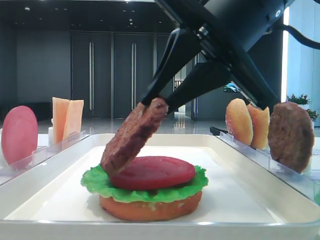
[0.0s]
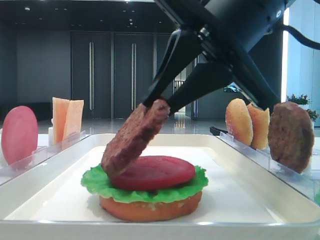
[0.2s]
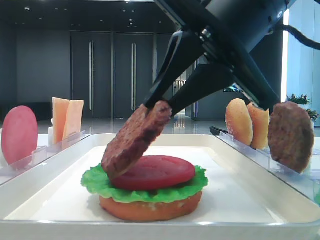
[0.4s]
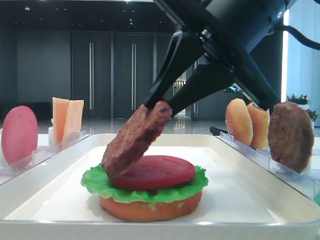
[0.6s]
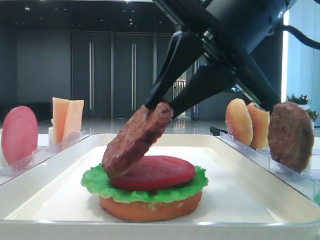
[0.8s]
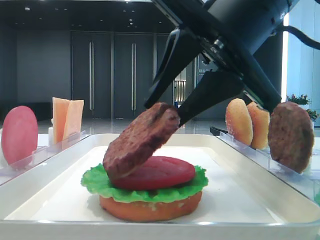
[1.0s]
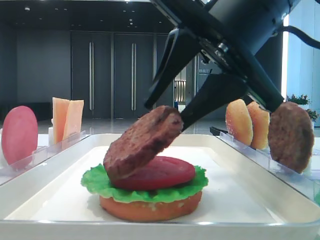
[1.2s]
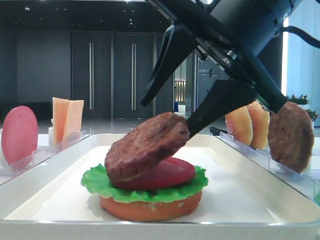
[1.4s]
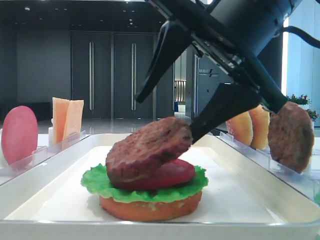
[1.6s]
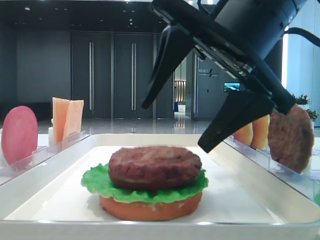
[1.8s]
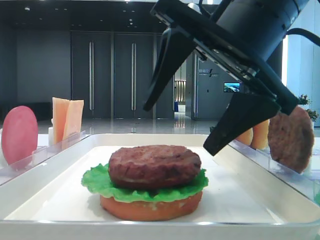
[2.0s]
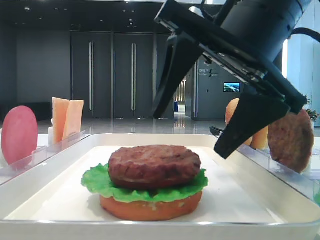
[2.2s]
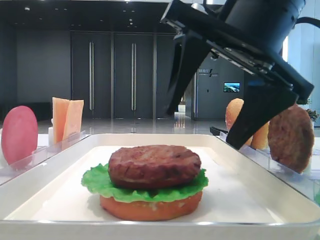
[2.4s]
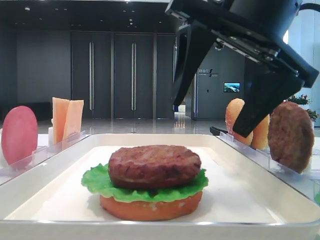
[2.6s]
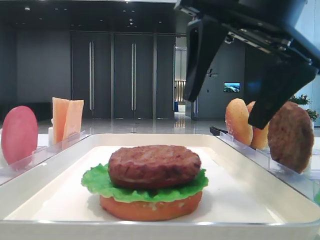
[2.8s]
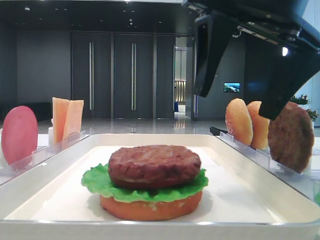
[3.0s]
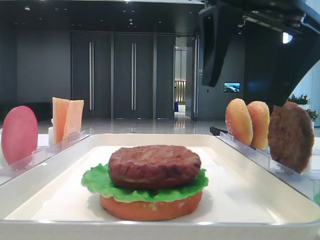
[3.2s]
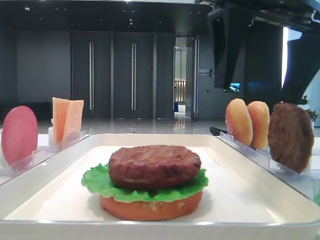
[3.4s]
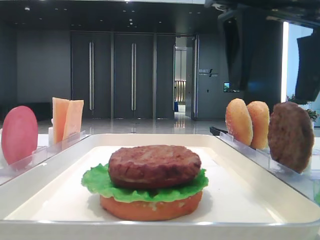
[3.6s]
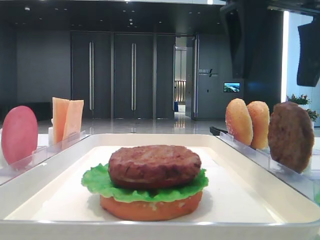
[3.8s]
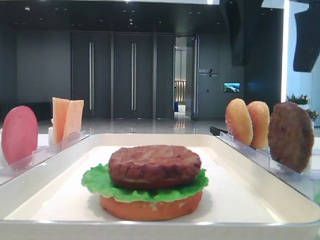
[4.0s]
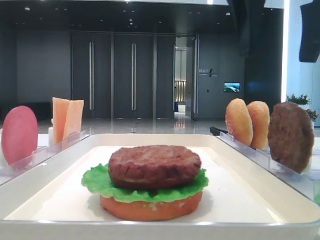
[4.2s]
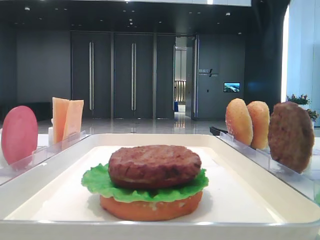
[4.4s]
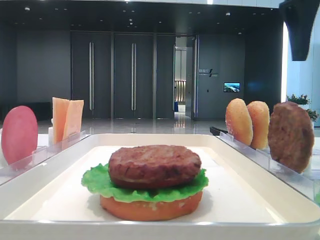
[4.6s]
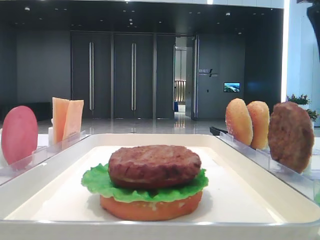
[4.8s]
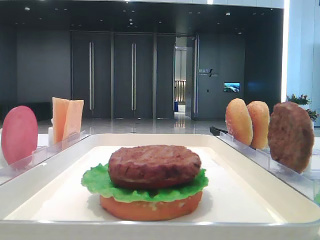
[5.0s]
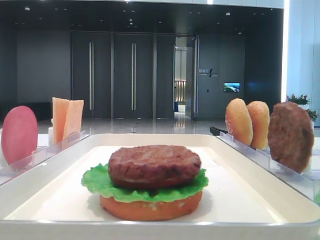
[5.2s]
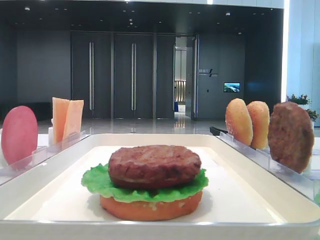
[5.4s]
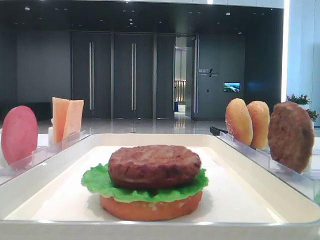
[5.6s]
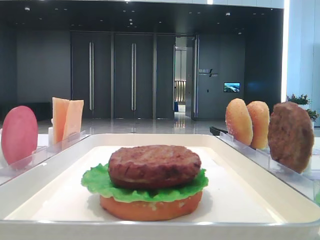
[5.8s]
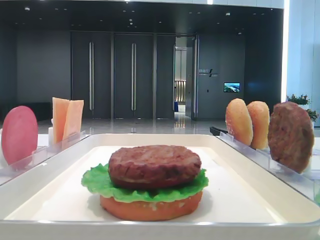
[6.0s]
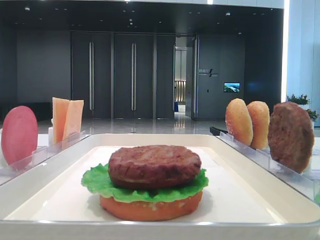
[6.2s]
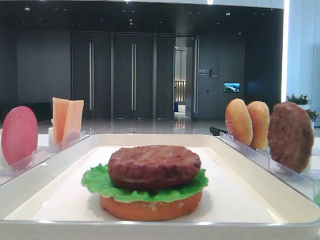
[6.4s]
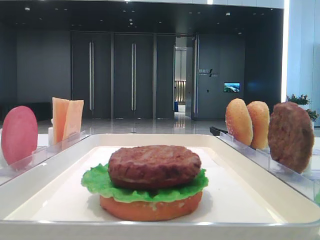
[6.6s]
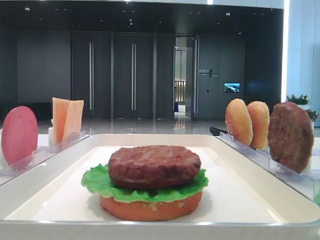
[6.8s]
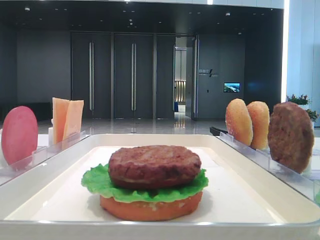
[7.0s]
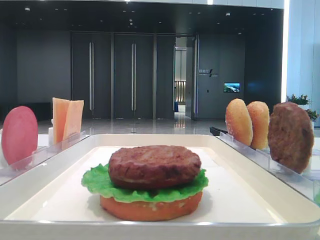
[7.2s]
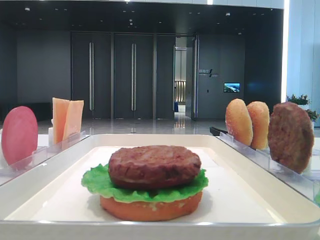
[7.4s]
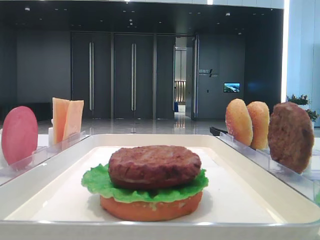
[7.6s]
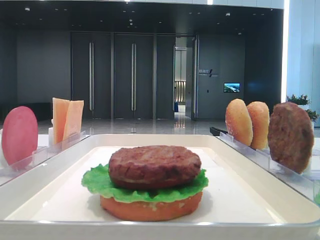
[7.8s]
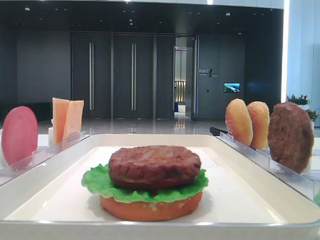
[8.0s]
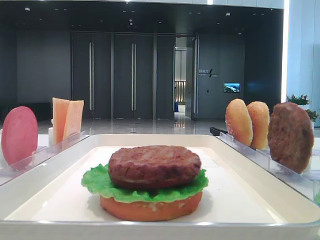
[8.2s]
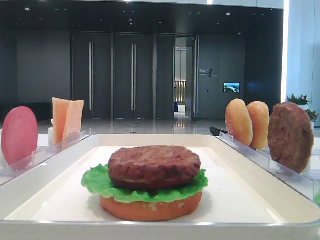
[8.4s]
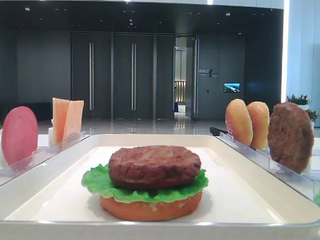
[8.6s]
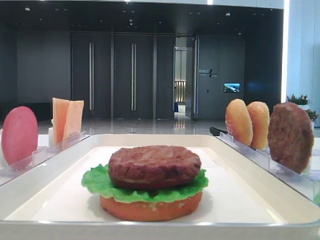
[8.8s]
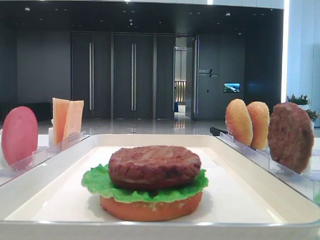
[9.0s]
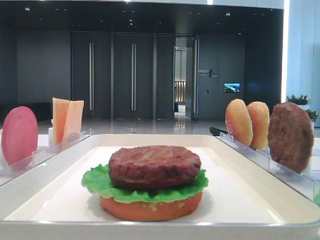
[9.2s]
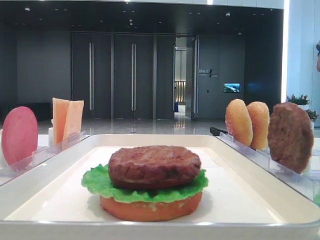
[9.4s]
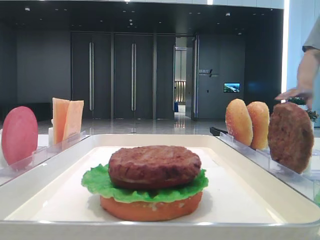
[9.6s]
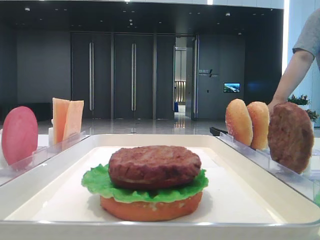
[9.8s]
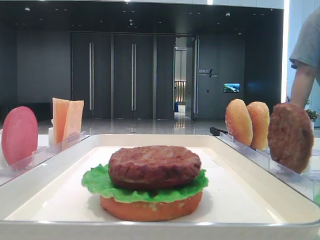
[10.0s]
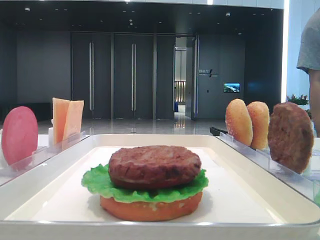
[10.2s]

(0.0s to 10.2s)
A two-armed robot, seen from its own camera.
0.0s - 1.4s: The right gripper opens.
1.4s - 3.0s: The right gripper opens its fingers.
3.0s - 4.4s: The right gripper moves upward and to the right, about 10 cm.
4.4s - 5.8s: The right gripper goes some 15 cm to the right.
8.8s - 10.2s: There are only small adjustments of the grippers.

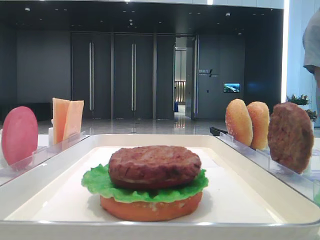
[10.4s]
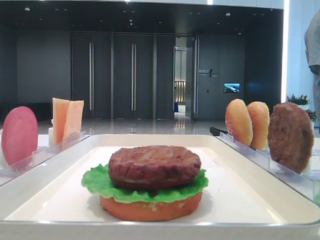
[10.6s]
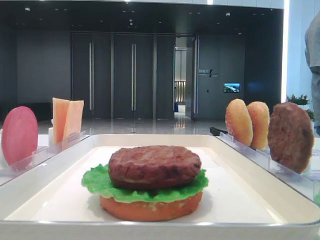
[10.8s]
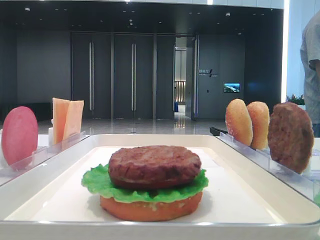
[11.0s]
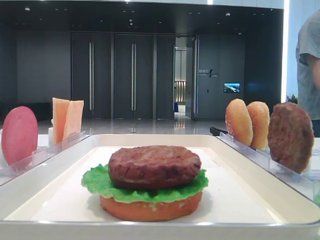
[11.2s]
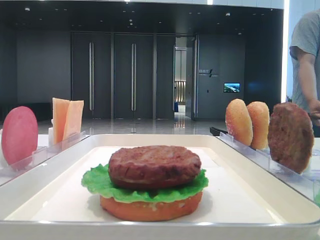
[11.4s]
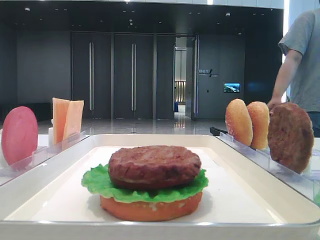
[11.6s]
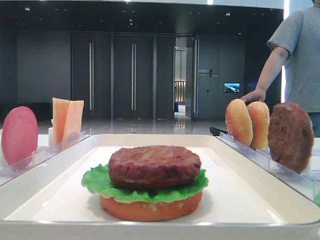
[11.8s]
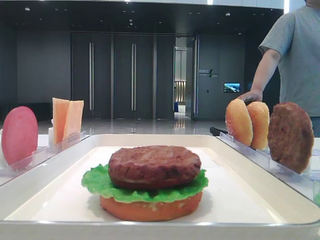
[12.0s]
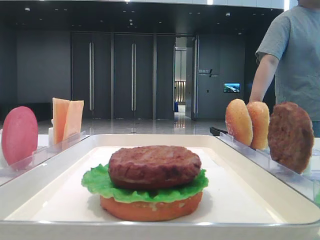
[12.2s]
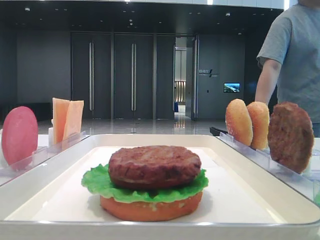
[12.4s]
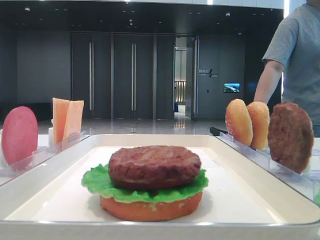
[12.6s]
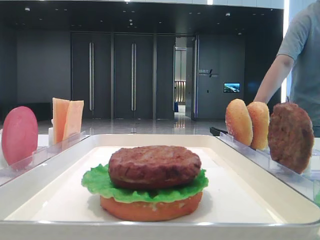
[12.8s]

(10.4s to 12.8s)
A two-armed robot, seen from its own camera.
10.4s - 12.8s: The two grippers keep their place.

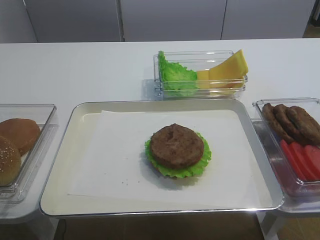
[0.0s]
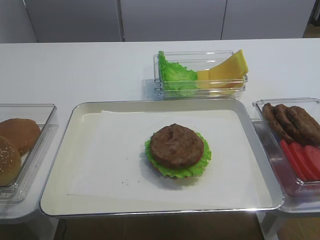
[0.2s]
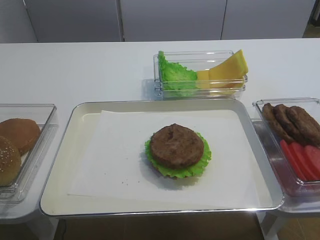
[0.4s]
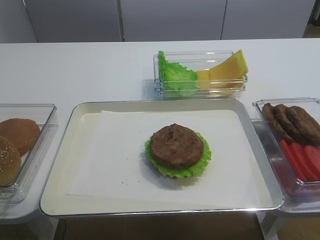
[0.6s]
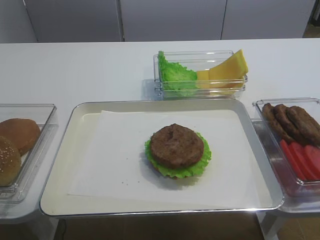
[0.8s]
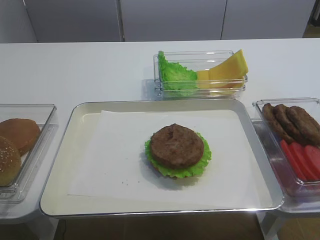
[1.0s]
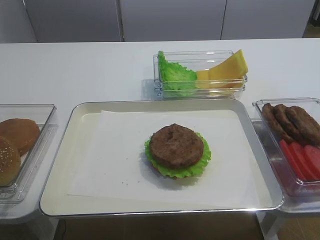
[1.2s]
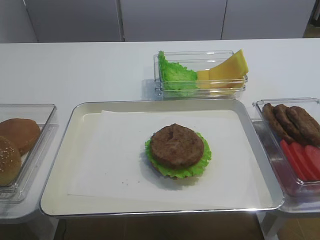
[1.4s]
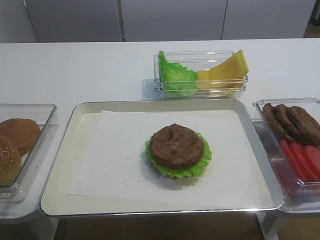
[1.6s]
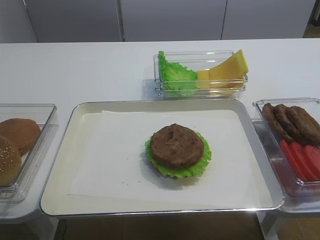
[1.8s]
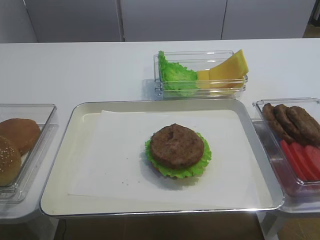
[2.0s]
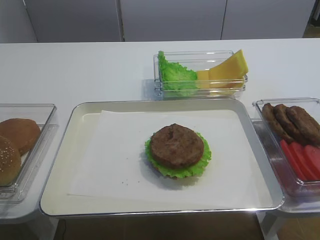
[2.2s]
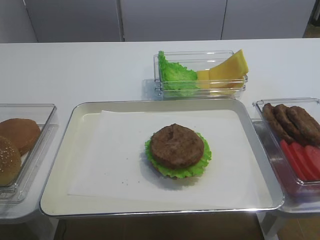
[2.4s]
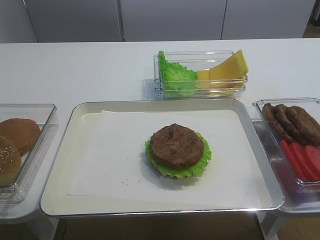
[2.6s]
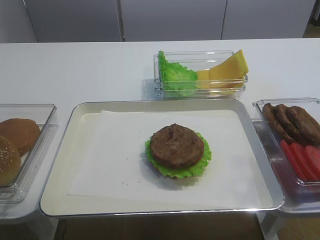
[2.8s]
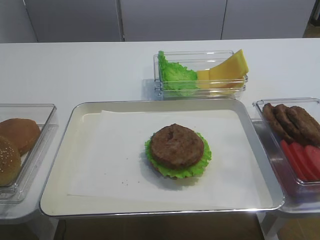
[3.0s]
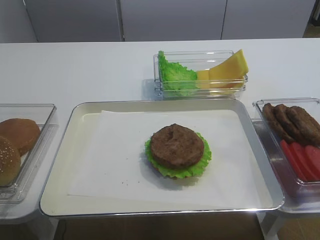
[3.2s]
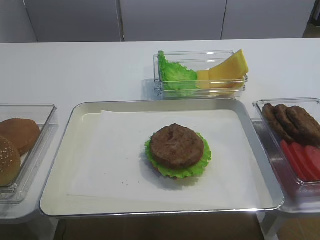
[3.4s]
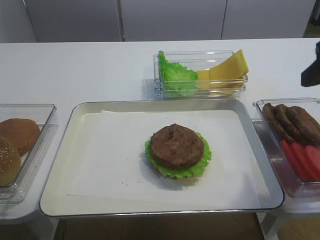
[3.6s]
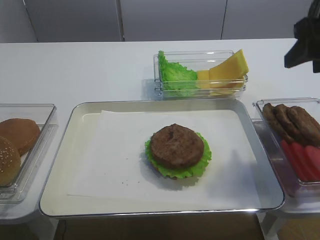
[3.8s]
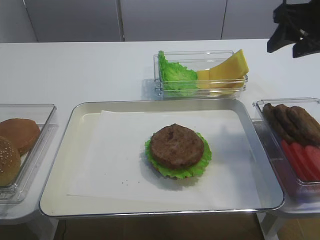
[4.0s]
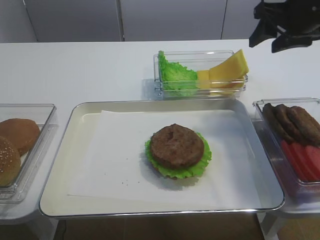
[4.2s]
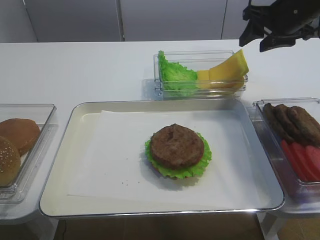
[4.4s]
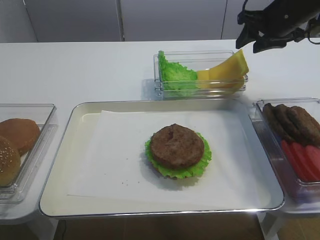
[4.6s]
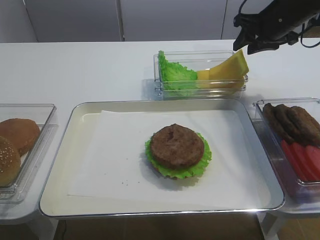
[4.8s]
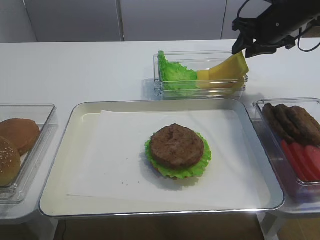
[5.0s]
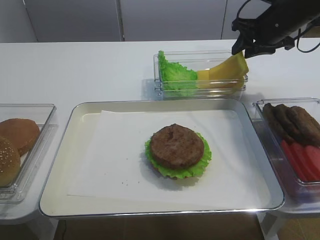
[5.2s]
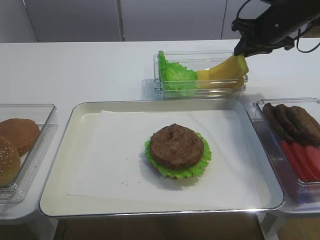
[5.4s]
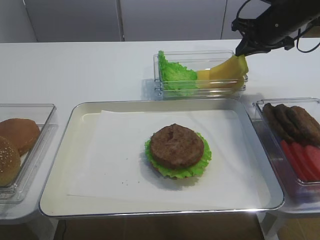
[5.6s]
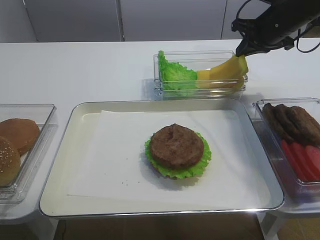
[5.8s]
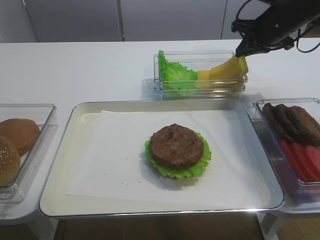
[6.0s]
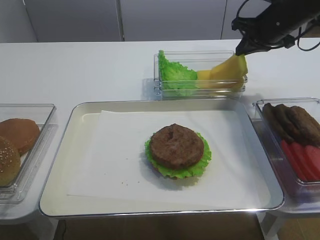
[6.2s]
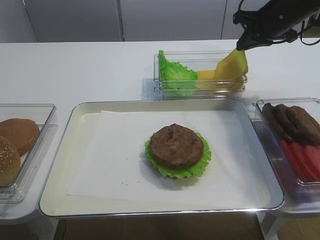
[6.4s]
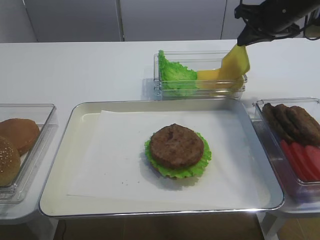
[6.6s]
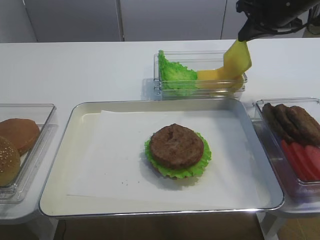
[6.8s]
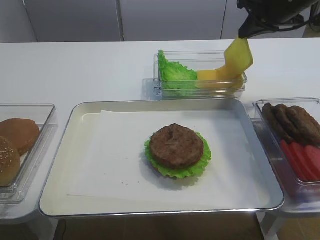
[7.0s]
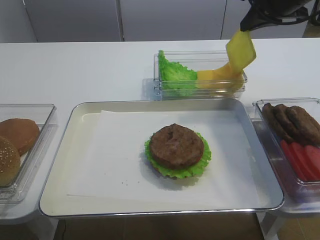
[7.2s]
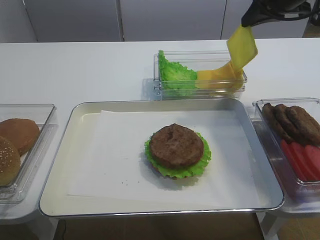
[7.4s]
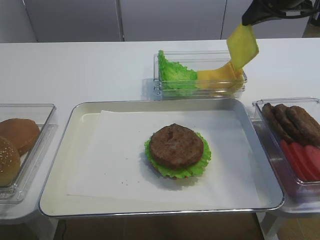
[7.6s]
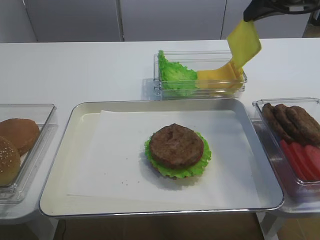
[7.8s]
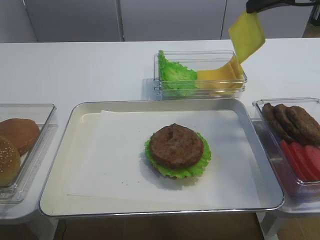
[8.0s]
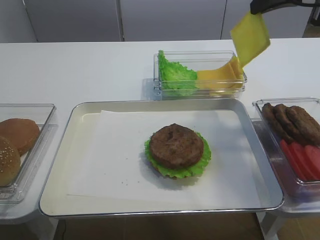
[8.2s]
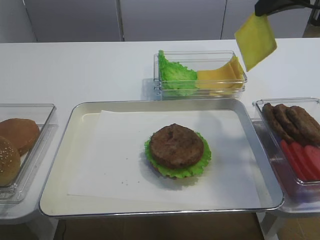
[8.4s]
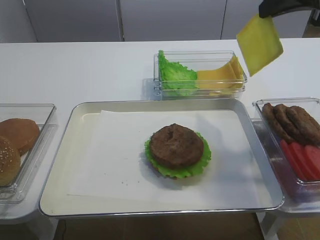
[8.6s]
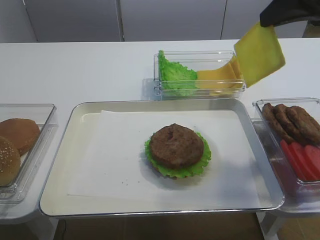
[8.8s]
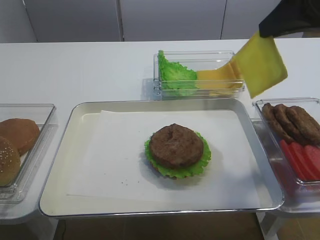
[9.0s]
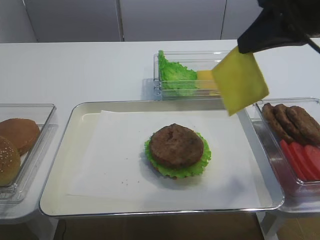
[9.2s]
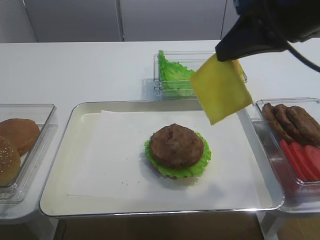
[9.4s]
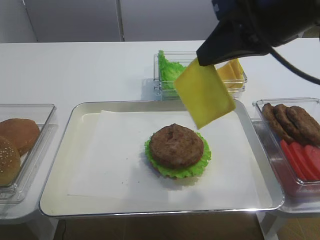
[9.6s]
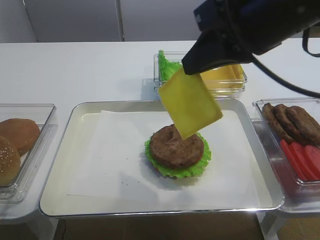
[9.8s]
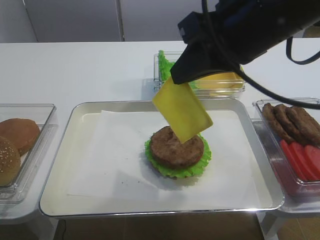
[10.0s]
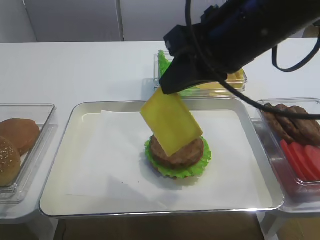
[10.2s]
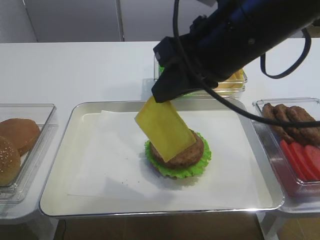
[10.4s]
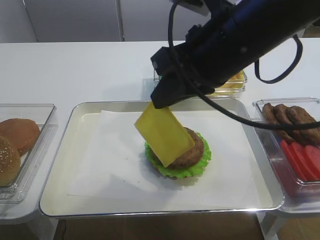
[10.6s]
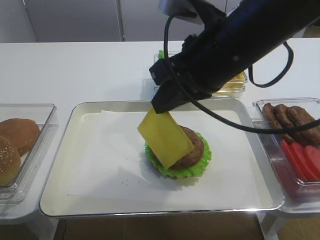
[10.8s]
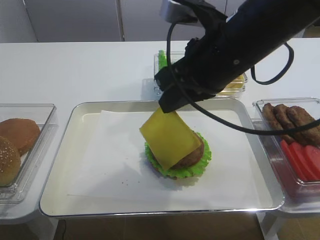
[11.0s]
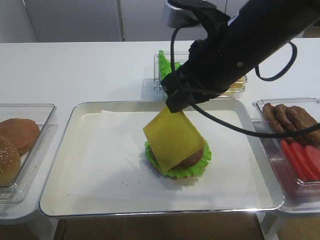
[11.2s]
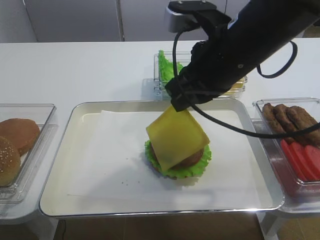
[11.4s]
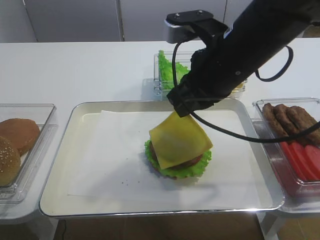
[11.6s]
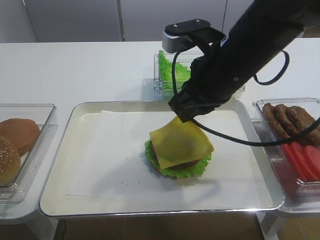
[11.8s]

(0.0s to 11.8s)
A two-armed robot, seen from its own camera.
Step, 0.0s - 8.0s: Pick up the cheese slice with the right gripper.
3.0s - 4.4s: The right gripper travels forward by approximately 35 cm.
4.4s - 6.0s: The right gripper shifts by about 5 cm, and closes up.
6.0s - 7.4s: The right gripper moves upward, some 10 cm.
7.4s - 8.8s: The right gripper goes roughly 10 cm backward.
8.8s - 10.4s: The right gripper goes some 15 cm to the left and backward.
10.4s - 11.8s: The right gripper shifts some 5 cm downward.
